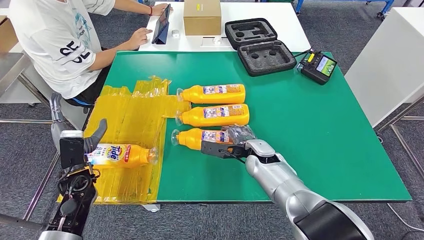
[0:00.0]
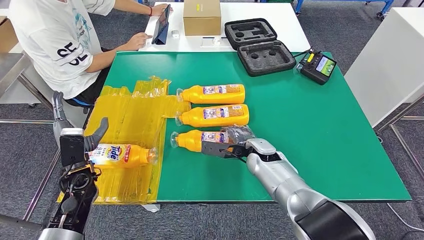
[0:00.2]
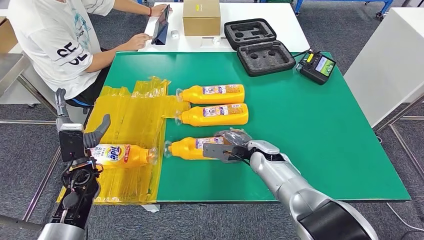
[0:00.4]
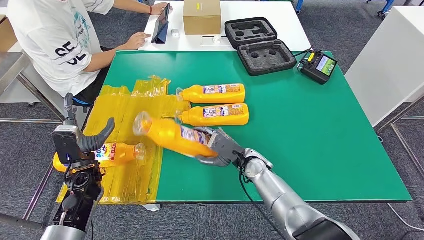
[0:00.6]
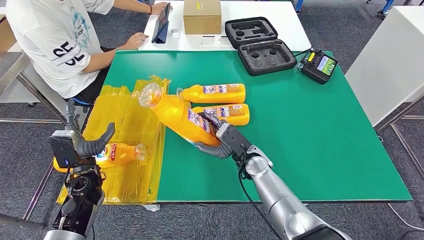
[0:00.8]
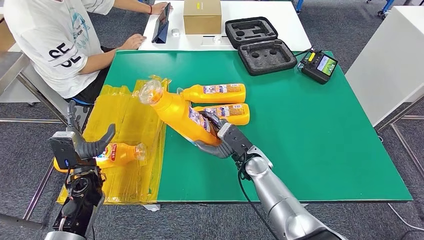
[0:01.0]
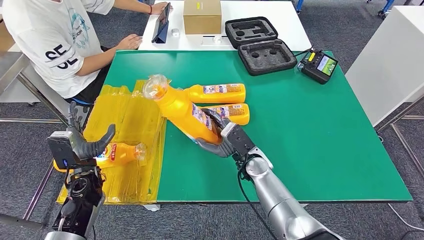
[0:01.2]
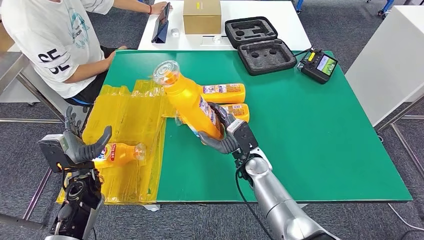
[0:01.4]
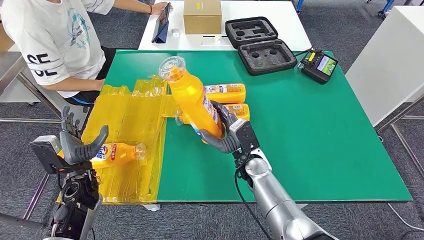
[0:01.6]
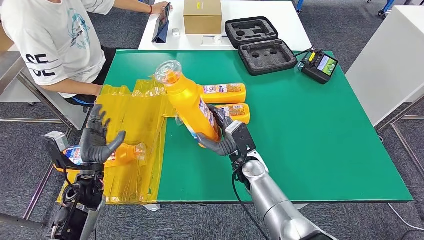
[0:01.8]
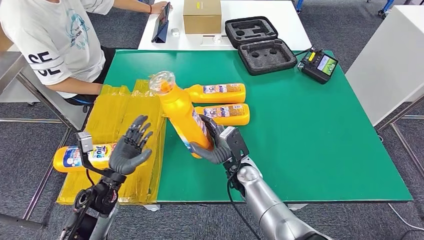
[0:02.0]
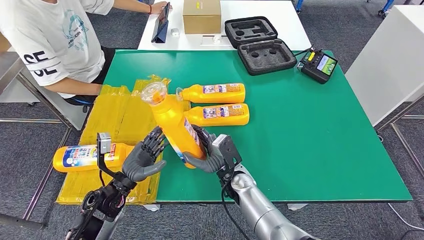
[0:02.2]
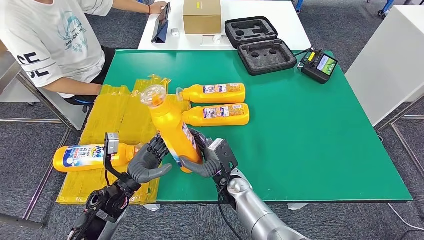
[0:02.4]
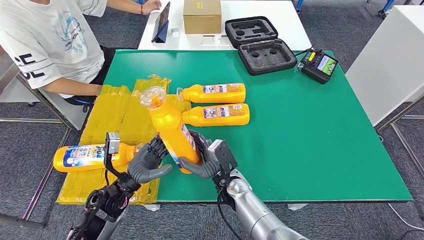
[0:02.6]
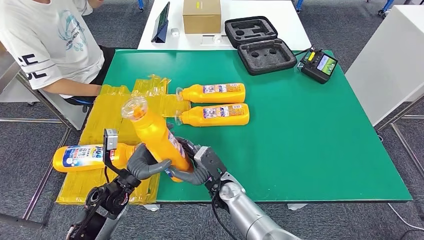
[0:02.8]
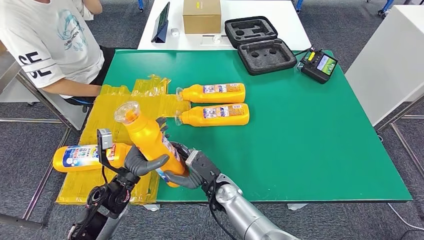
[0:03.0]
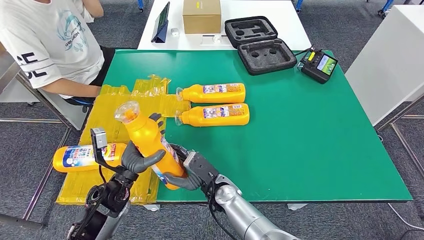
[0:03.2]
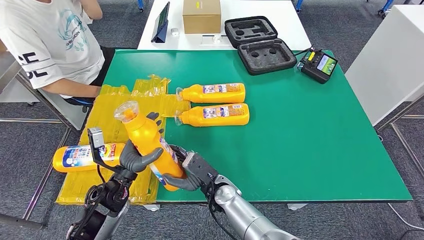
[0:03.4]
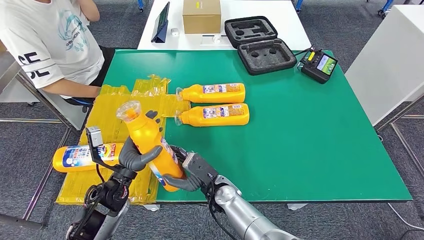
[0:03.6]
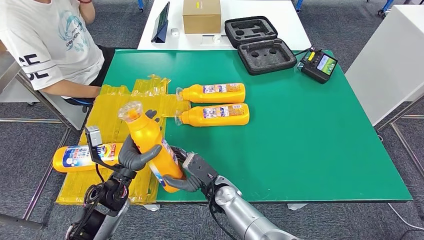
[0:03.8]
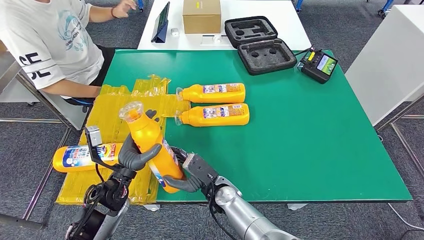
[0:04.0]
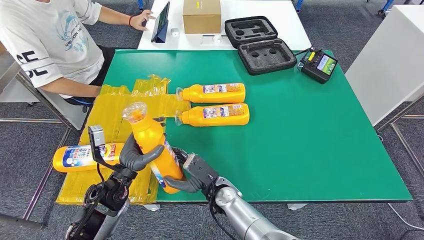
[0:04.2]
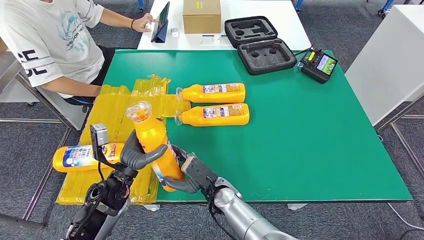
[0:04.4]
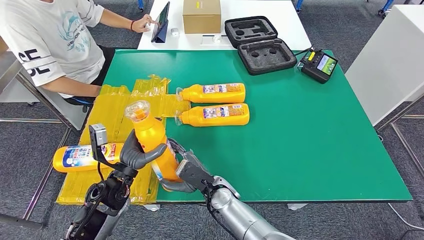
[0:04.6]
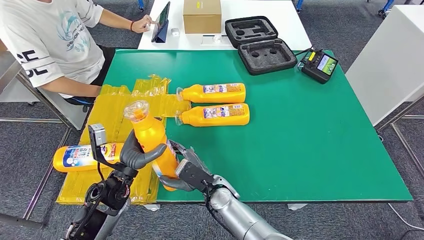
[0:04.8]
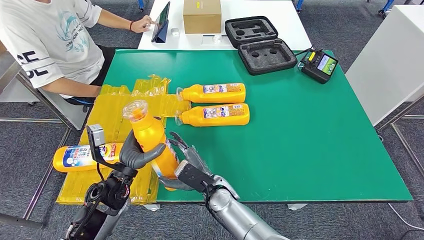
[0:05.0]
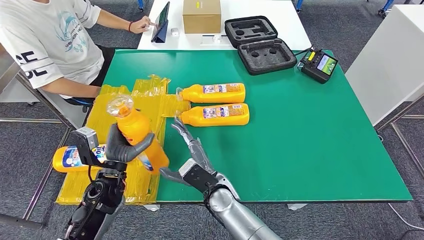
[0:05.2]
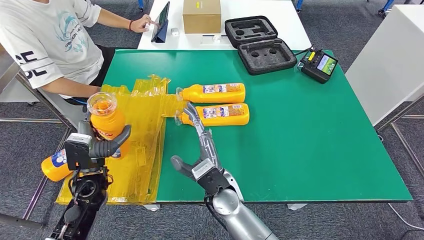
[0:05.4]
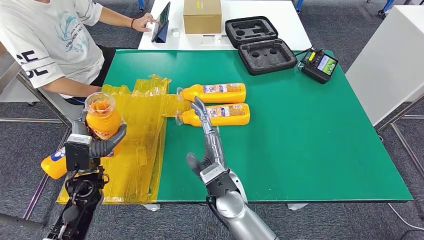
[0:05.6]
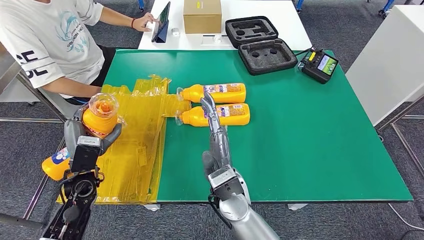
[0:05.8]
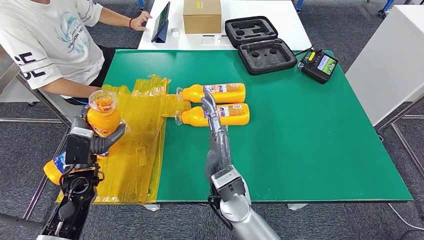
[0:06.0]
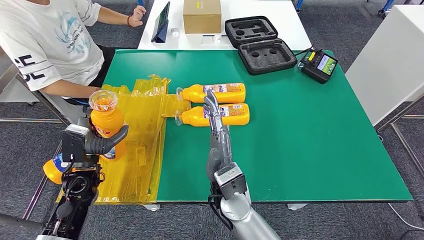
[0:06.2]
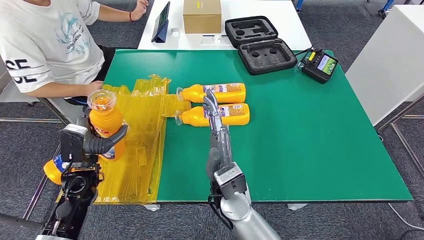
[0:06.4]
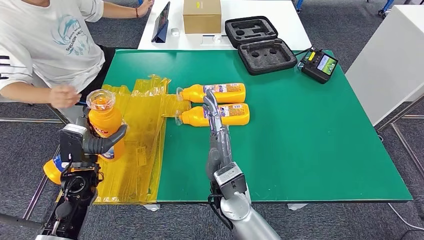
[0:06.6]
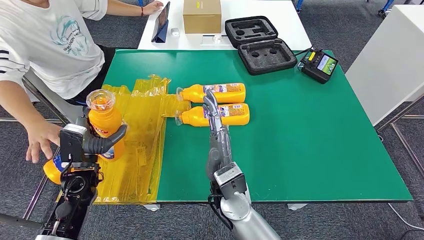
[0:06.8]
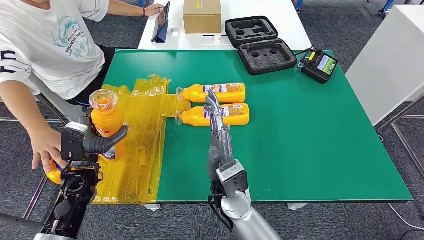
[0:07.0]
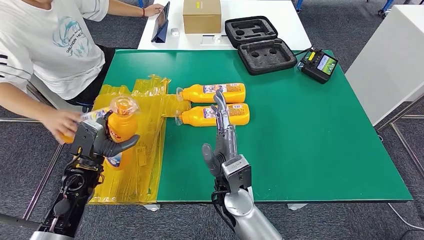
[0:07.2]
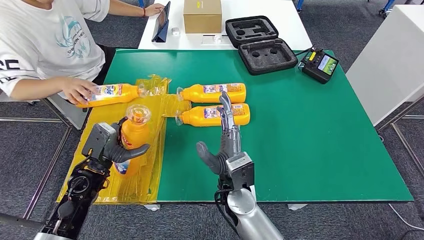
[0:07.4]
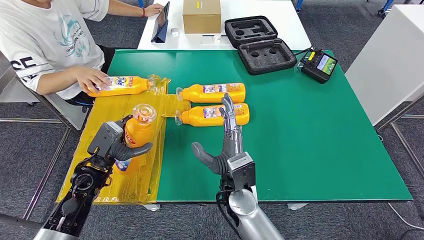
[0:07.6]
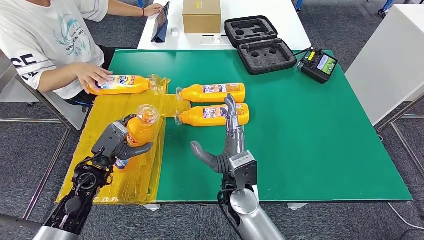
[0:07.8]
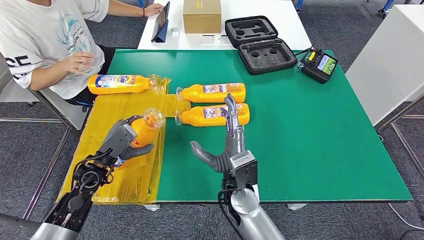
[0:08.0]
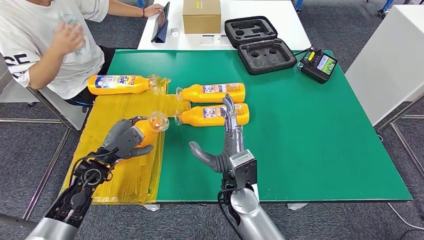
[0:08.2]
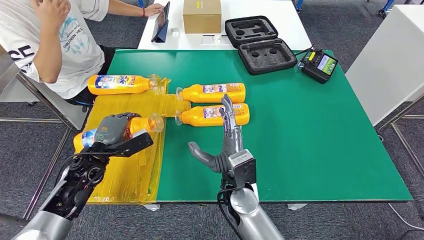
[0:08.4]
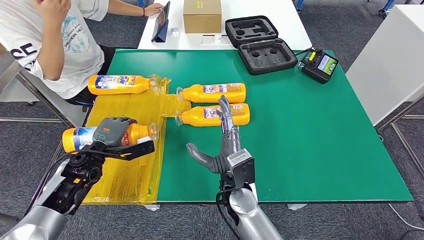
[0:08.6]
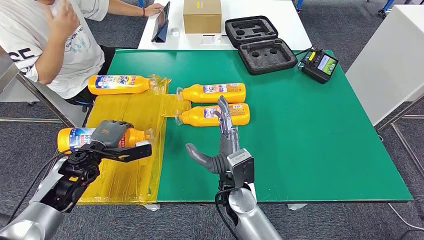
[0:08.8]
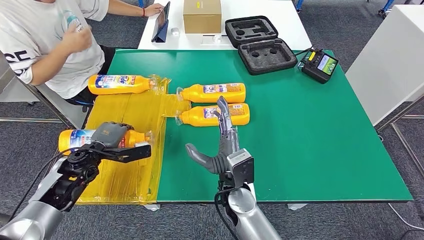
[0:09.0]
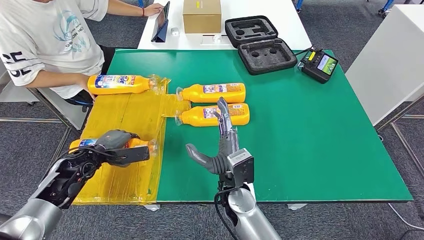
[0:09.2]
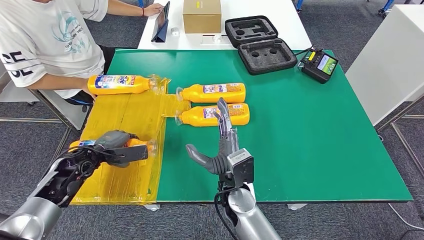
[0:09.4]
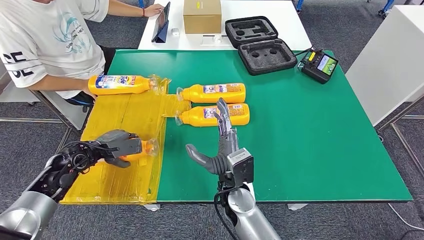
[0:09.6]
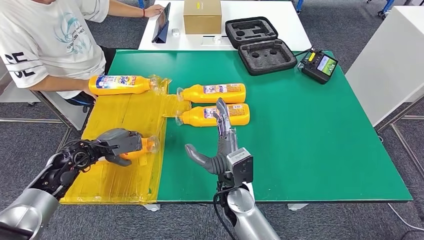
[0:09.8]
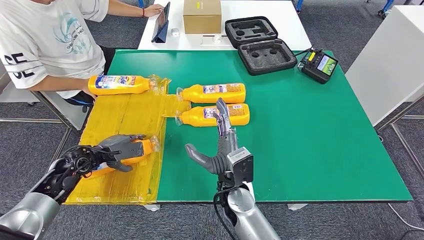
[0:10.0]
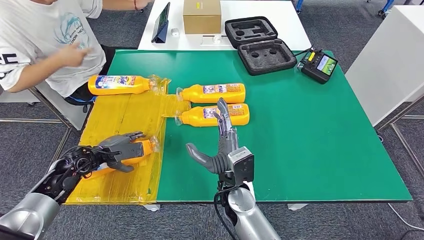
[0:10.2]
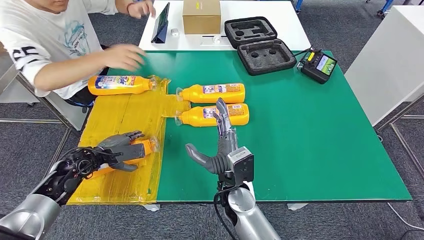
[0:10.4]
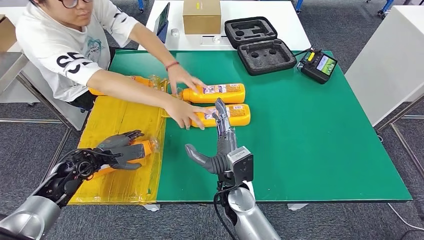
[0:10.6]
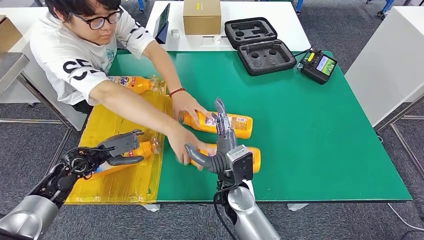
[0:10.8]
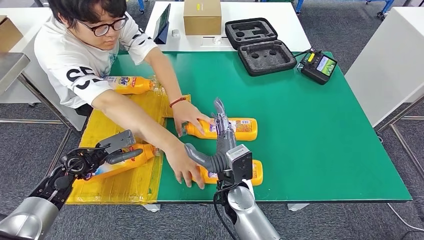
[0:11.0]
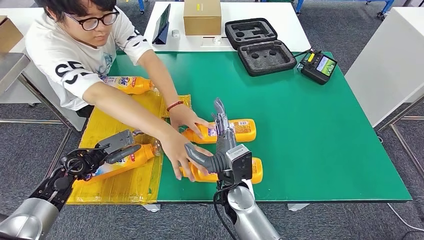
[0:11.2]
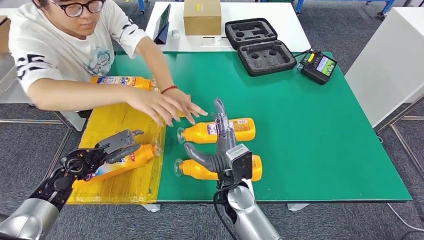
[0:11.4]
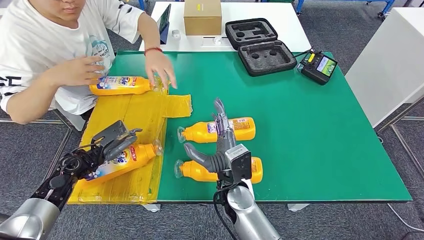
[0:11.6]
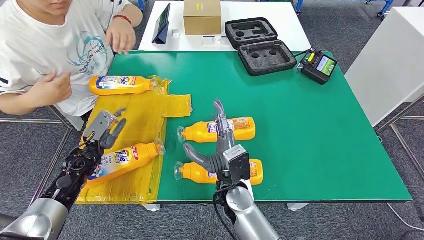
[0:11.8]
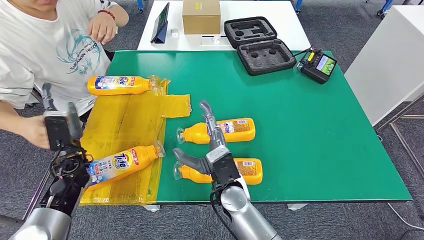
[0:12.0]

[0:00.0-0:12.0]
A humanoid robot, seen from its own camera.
Step, 0:00.0 to 0:02.0: Pick up the bottle from the table.
Step, 0:03.2 to 0:12.0: Flip the bottle to face forward.
0:03.0 to 0:04.4: The hands move only a little.
0:04.4 to 0:06.0: The right hand goes some 10 cm upward, while the left hand goes roughly 10 cm to the left.
0:07.6 to 0:09.0: The left hand ends up approximately 5 cm from where it was.

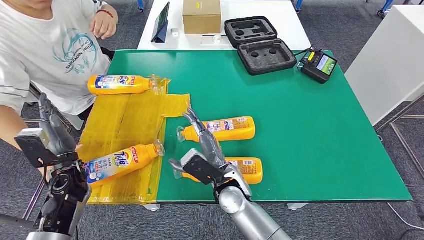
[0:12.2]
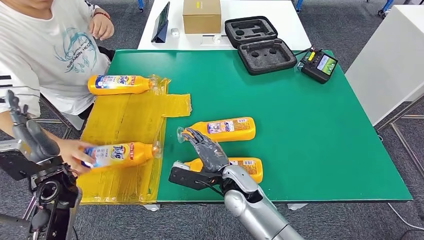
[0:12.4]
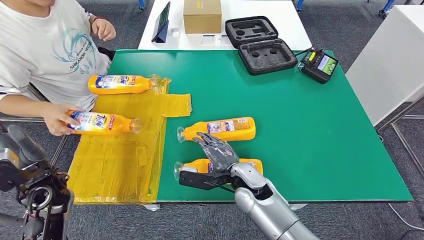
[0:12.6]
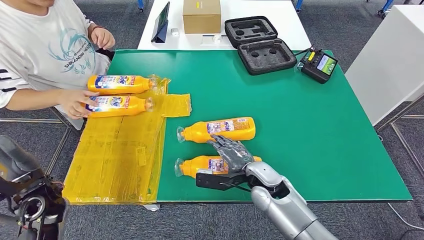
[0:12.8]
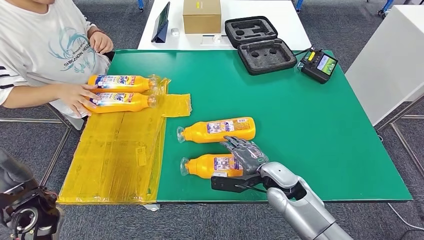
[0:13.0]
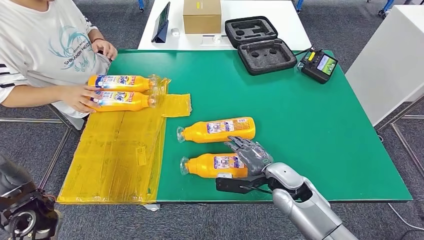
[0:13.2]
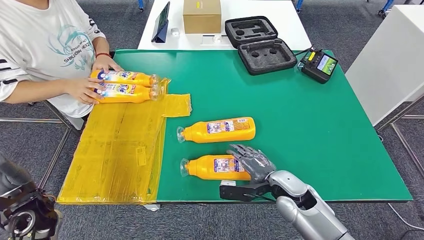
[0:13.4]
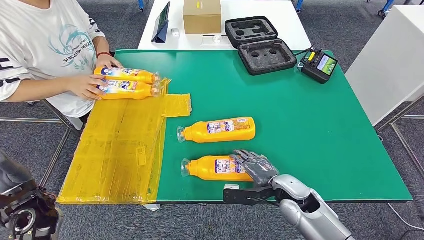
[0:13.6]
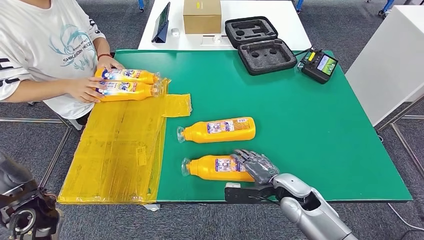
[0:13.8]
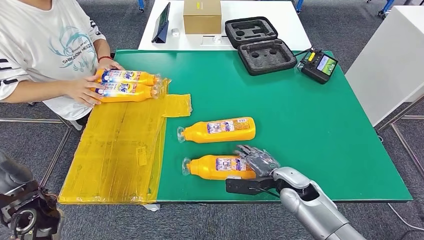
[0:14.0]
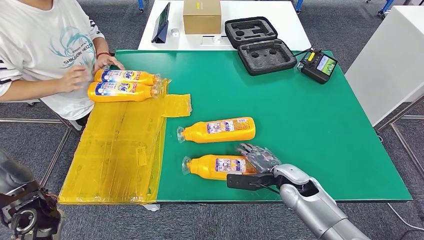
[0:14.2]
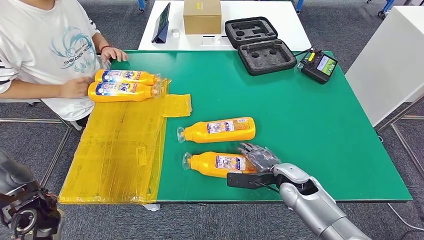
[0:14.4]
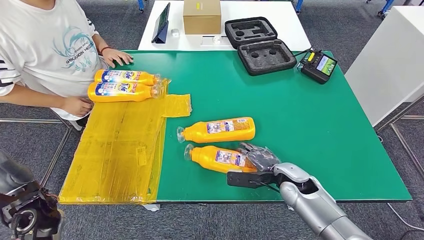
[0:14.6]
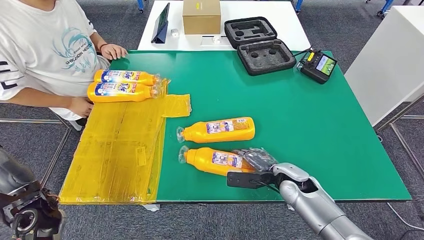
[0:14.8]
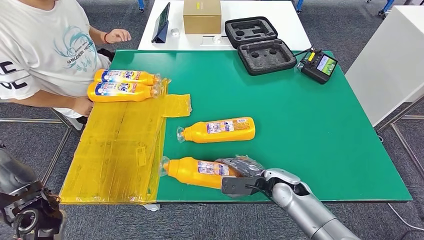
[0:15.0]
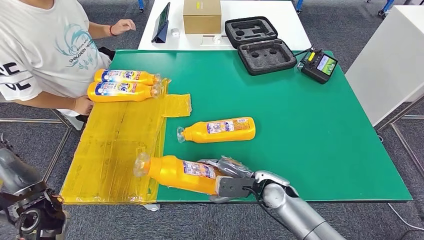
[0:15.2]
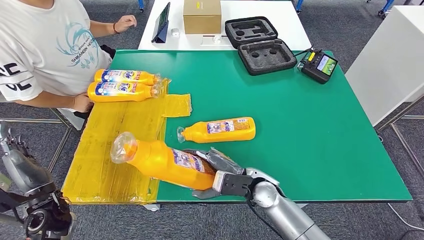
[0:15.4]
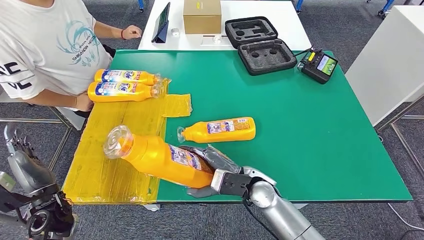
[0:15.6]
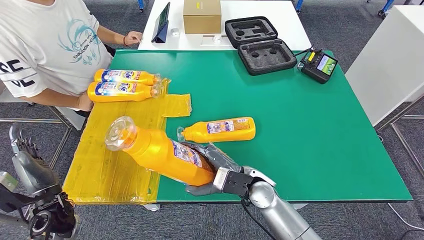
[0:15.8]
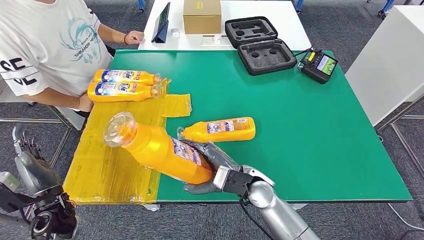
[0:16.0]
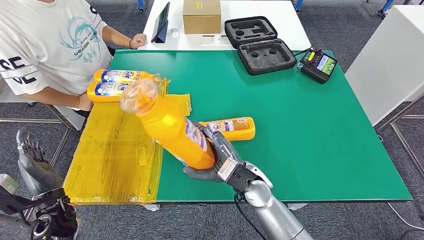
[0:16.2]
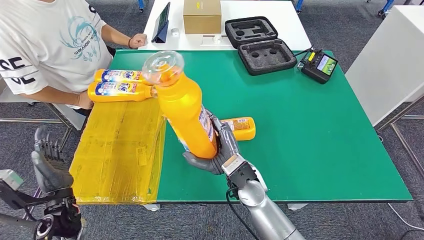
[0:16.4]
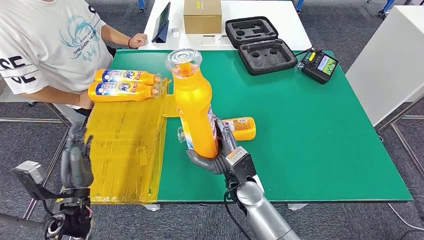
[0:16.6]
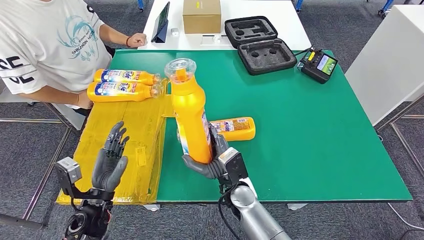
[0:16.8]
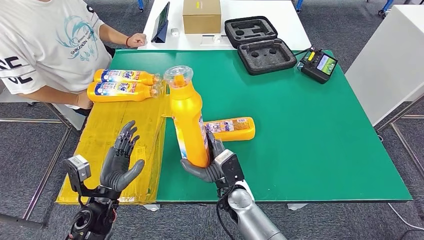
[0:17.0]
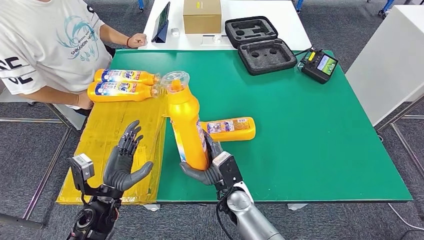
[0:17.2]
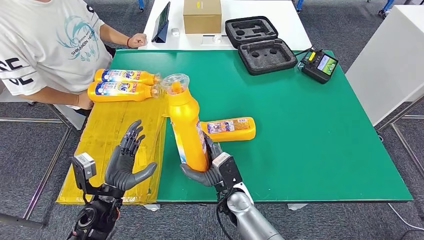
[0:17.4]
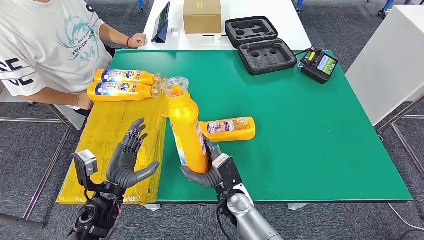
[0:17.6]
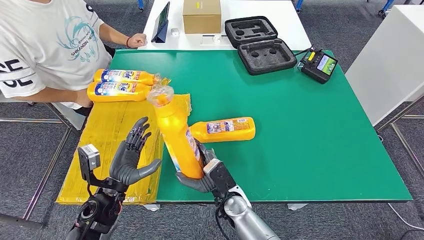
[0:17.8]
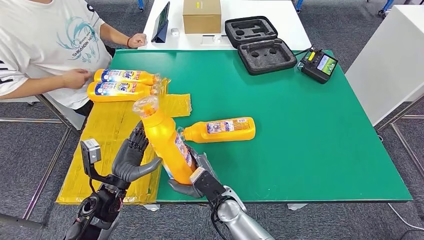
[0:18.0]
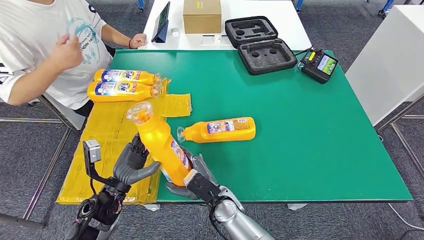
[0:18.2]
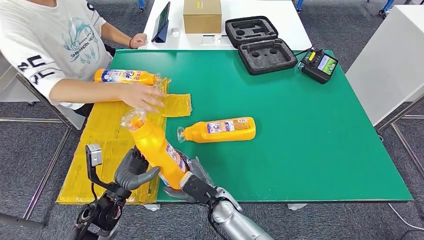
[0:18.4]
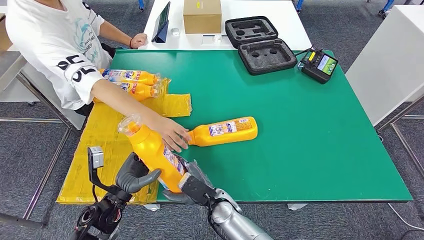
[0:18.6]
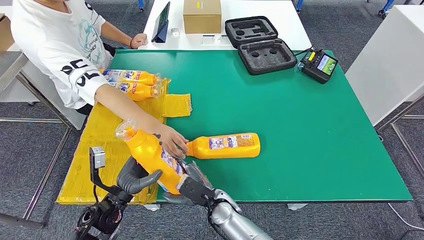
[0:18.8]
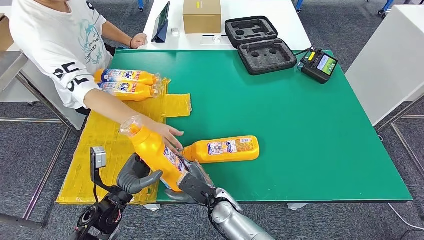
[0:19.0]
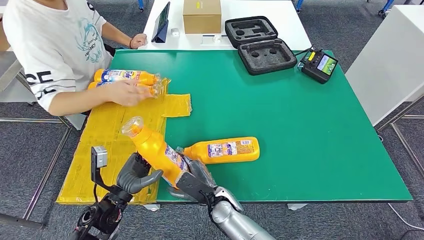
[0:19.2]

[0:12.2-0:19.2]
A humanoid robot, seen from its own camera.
Step, 0:14.4 to 0:17.0: Pick up the bottle from the table.
0:16.4 to 0:17.8: The right hand travels downward by about 10 cm; the left hand shifts some 10 cm to the right.
